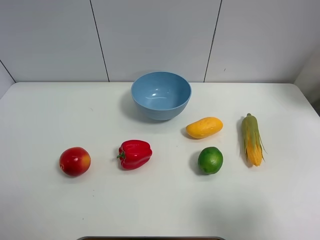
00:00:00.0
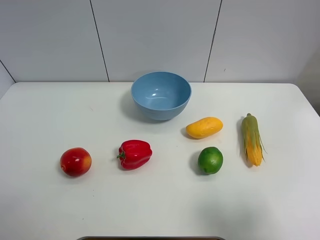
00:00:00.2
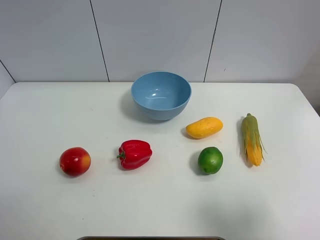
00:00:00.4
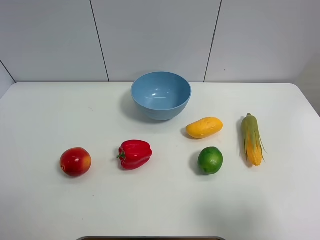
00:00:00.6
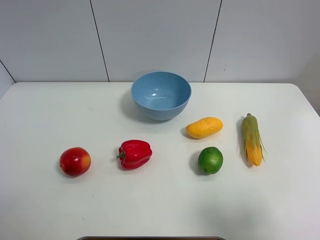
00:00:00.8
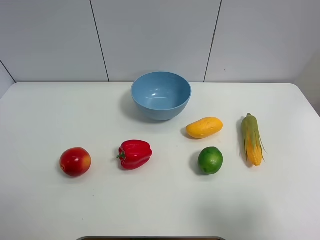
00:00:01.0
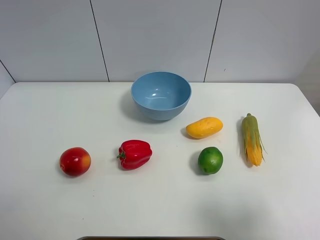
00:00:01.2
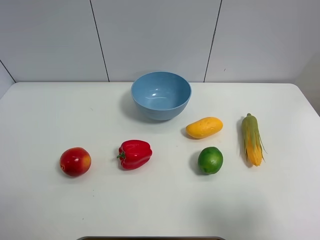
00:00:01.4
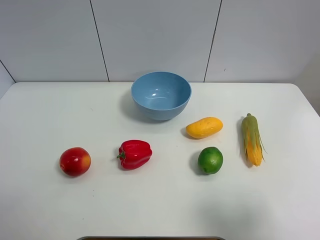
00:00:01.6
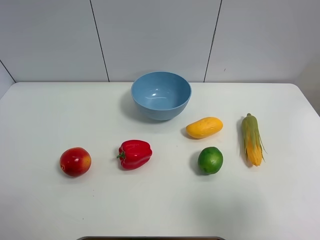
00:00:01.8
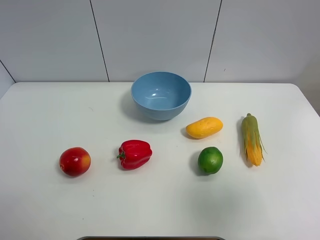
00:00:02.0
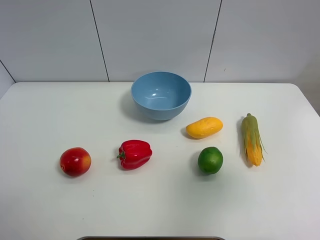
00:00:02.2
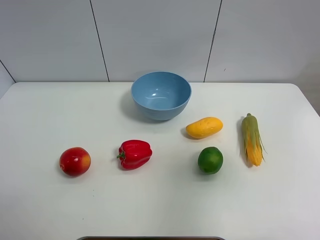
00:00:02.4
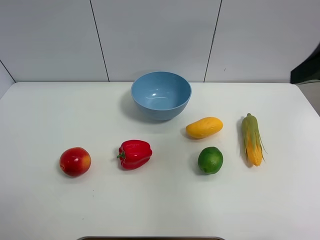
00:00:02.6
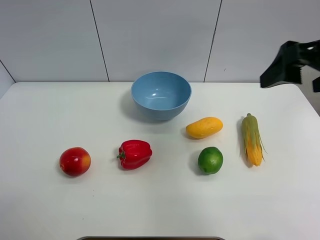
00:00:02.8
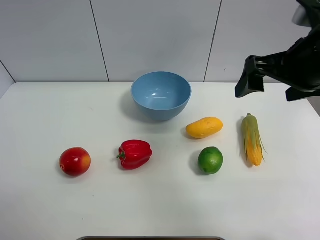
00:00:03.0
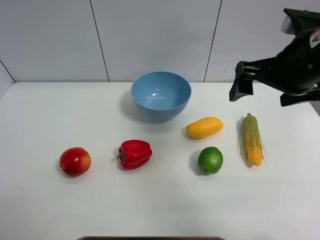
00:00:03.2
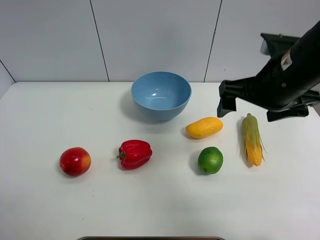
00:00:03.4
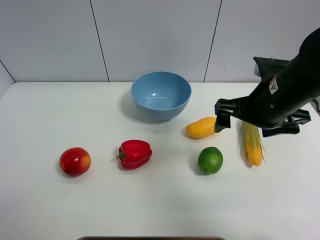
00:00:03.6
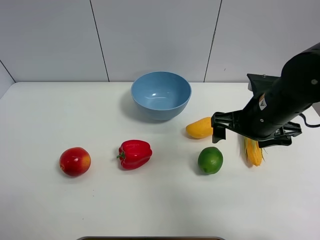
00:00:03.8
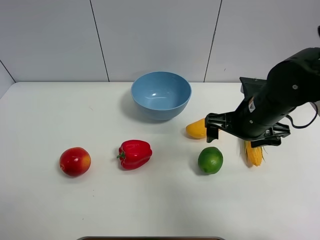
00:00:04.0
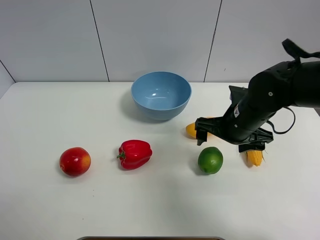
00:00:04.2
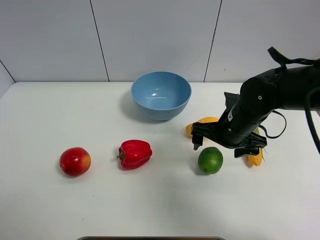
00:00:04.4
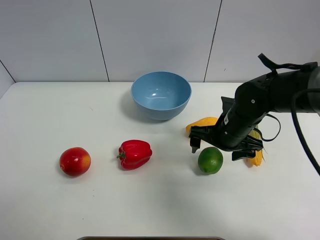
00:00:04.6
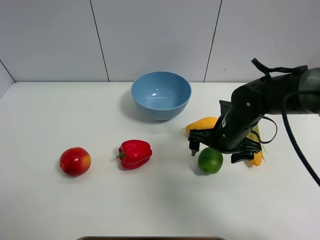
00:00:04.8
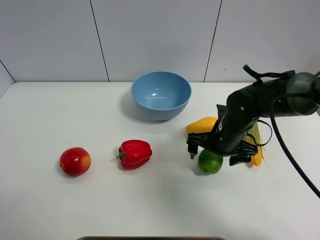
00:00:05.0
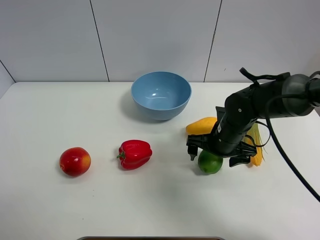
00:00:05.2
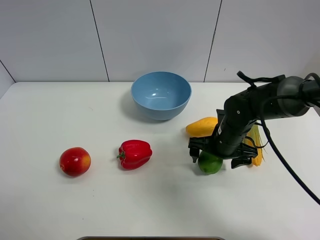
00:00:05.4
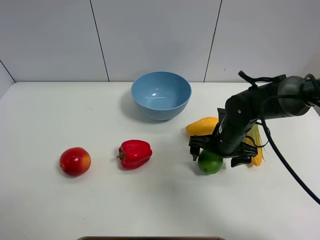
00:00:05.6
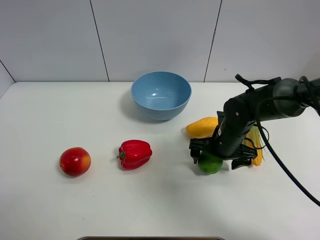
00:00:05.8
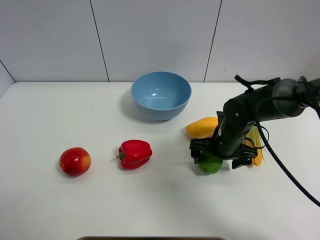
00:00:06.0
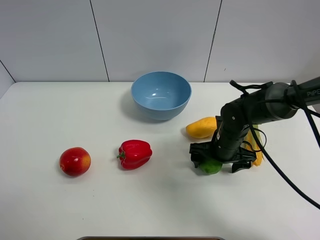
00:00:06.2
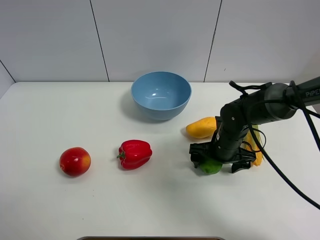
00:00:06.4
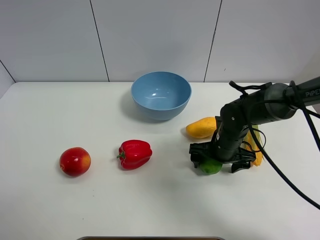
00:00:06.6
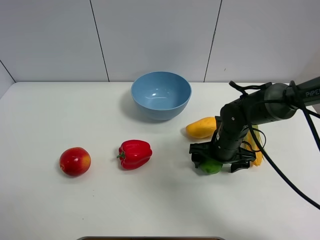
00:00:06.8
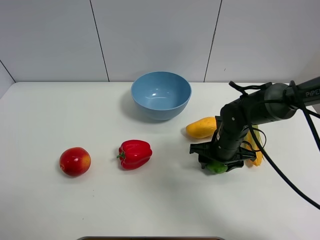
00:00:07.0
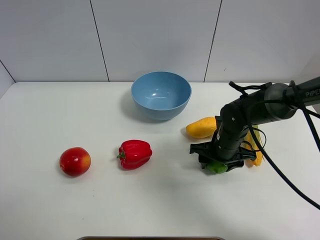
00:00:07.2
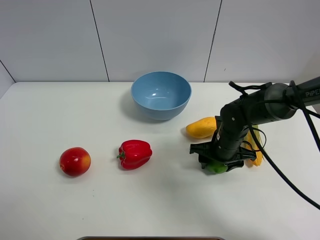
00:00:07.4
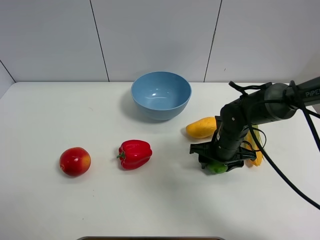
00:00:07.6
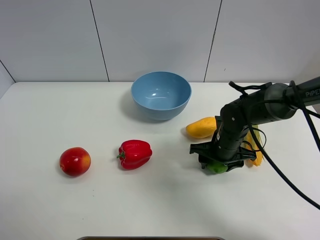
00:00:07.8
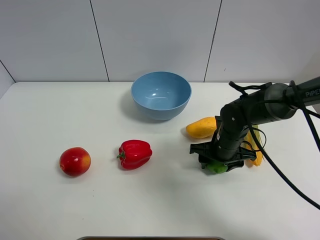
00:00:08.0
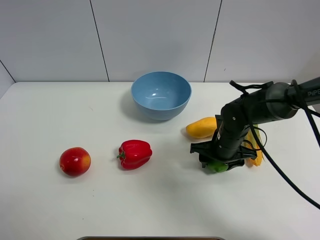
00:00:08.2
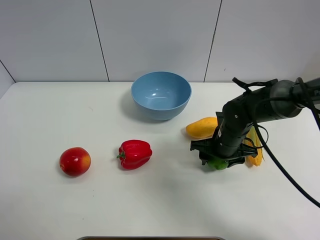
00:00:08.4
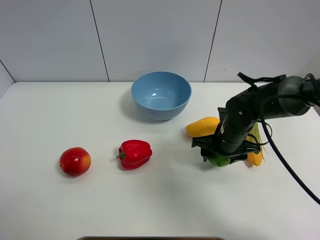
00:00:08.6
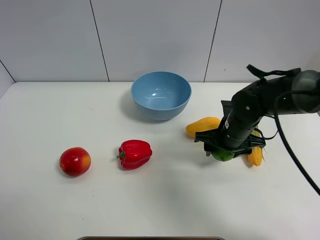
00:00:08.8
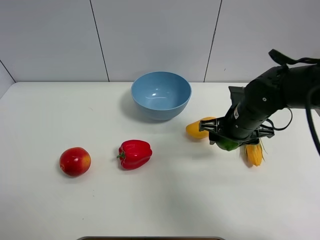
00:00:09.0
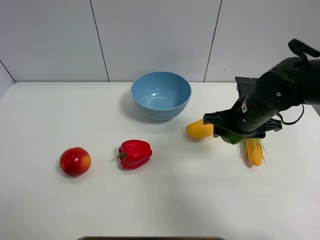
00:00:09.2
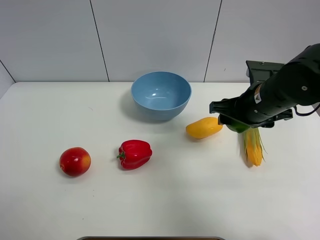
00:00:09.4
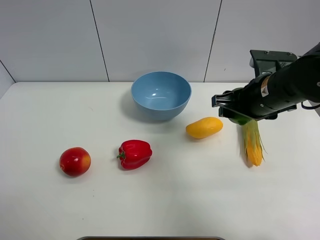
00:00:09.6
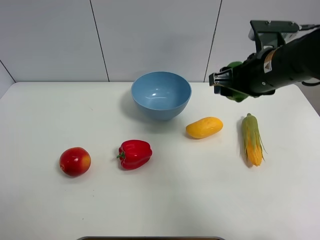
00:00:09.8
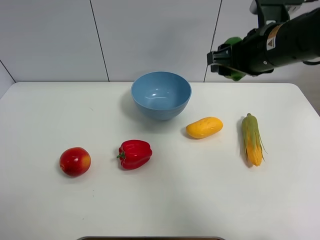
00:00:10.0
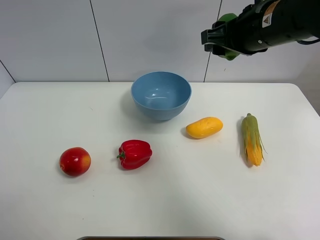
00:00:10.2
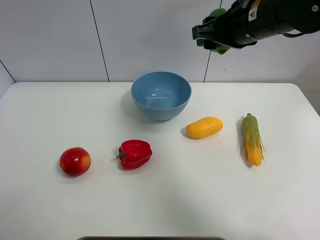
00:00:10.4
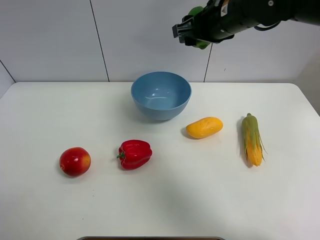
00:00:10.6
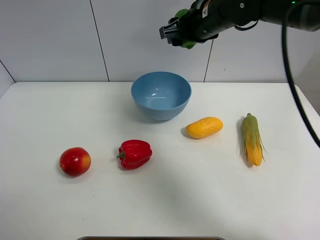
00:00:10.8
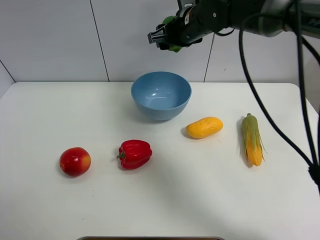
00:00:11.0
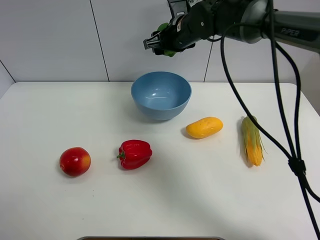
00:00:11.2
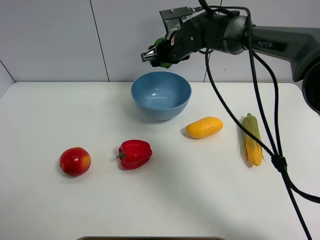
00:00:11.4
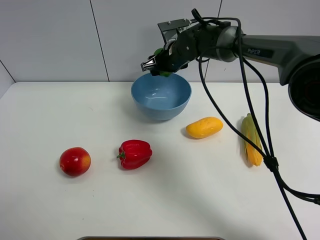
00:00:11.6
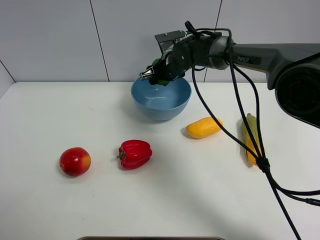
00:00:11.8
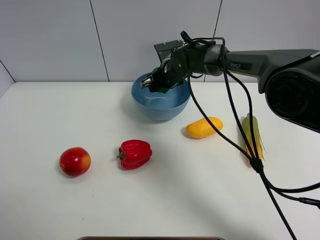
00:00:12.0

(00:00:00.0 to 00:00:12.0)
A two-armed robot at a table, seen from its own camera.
Task of the whole recording: Put the three fruits on the table into a bowl.
Step, 00:00:00.0 - 00:00:07.0: Grasp the green lemon with right gripper.
00:00:00.0 - 00:00:01.6: The two grippers keep their place.
00:00:01.6 - 00:00:03.0: The right gripper goes approximately 25 cm forward and to the left.
00:00:03.0 - 00:00:04.4: The right gripper moves downward, about 15 cm.
00:00:04.4 - 00:00:06.0: The right gripper moves downward, roughly 5 cm.
00:00:06.0 - 00:00:07.6: The right gripper closes its fingers.
00:00:07.6 - 00:00:09.0: The right gripper heads upward, covering approximately 10 cm.
00:00:09.0 - 00:00:10.4: The right gripper moves upward, approximately 15 cm.
00:00:10.4 - 00:00:12.0: The right gripper heads downward, forward and to the left, covering approximately 25 cm.

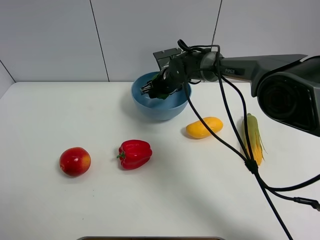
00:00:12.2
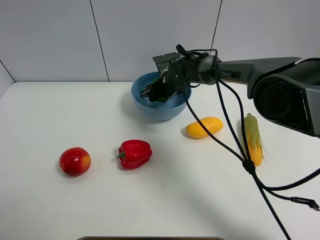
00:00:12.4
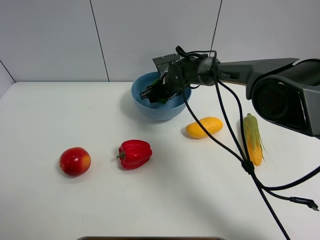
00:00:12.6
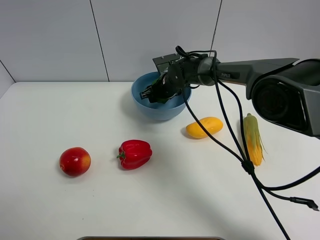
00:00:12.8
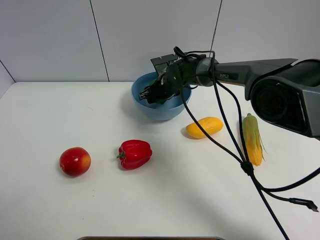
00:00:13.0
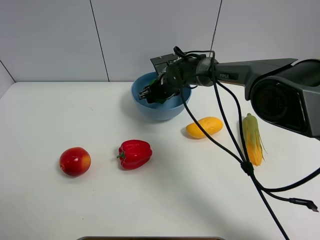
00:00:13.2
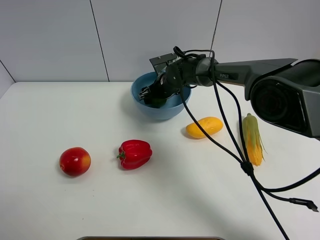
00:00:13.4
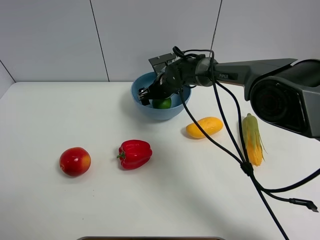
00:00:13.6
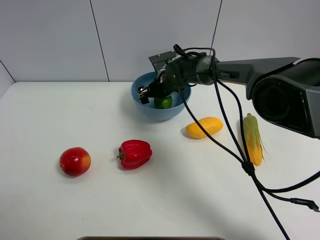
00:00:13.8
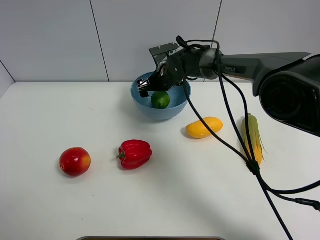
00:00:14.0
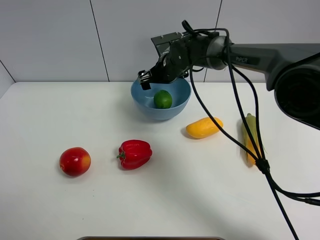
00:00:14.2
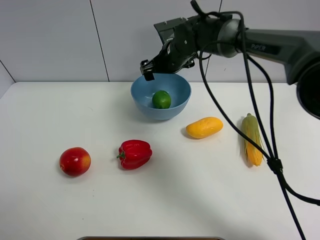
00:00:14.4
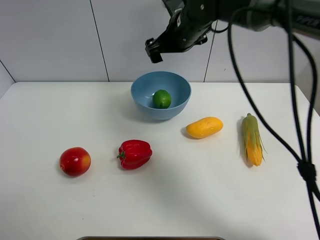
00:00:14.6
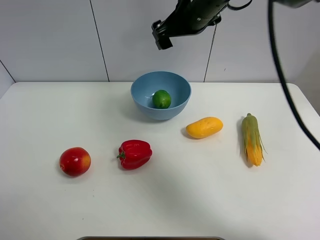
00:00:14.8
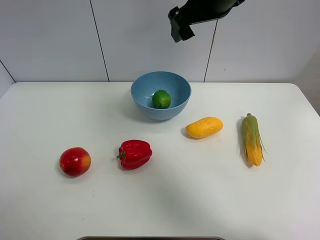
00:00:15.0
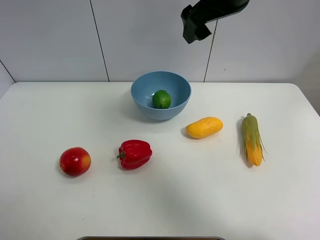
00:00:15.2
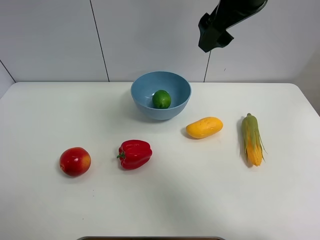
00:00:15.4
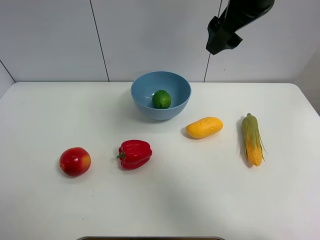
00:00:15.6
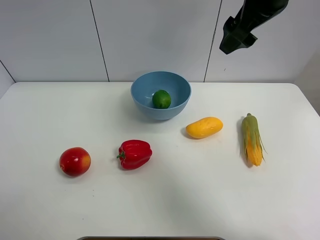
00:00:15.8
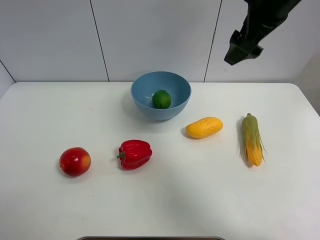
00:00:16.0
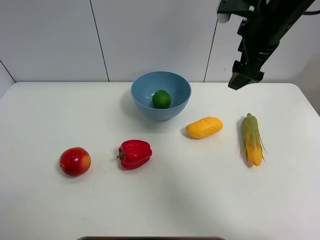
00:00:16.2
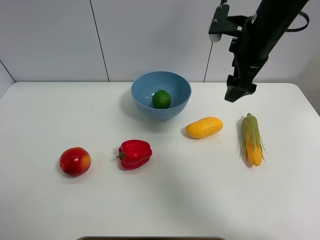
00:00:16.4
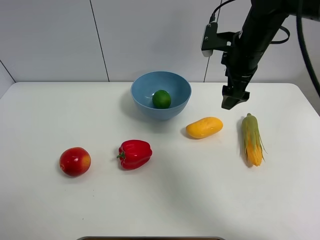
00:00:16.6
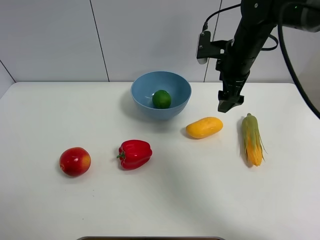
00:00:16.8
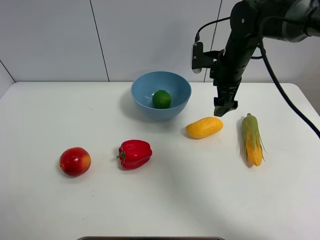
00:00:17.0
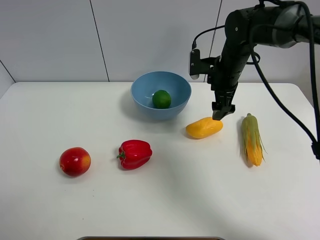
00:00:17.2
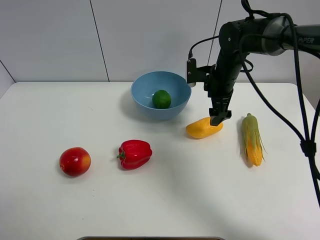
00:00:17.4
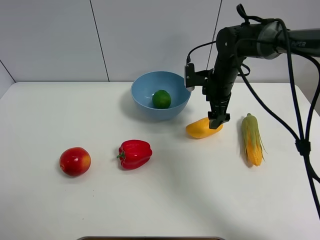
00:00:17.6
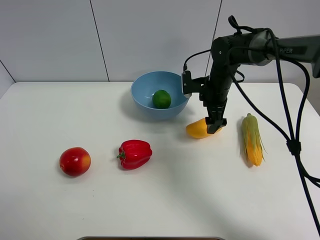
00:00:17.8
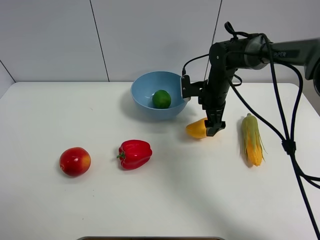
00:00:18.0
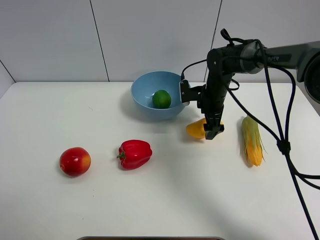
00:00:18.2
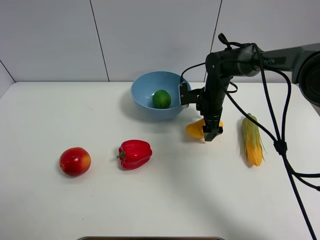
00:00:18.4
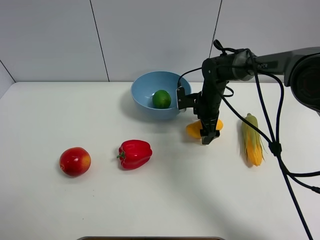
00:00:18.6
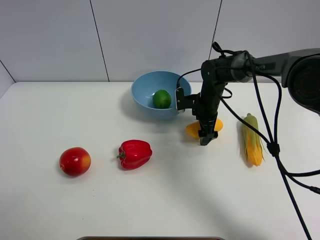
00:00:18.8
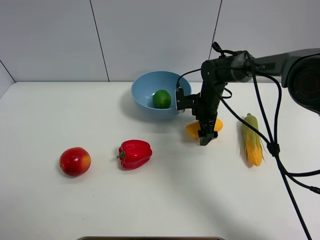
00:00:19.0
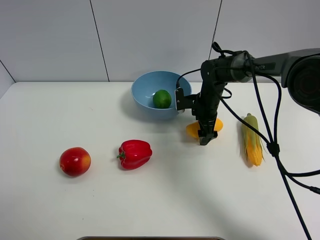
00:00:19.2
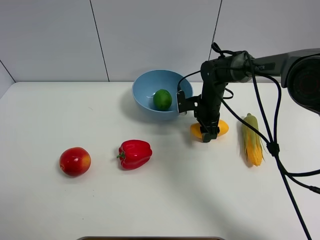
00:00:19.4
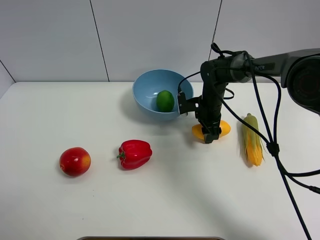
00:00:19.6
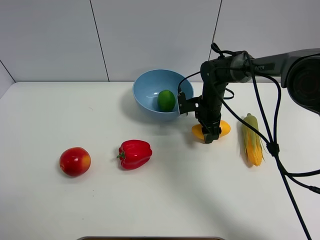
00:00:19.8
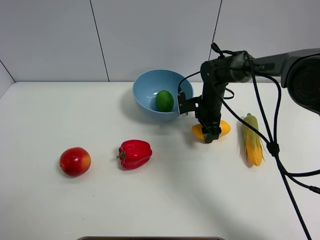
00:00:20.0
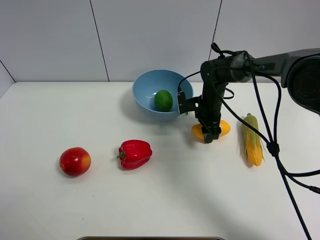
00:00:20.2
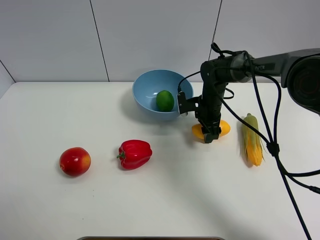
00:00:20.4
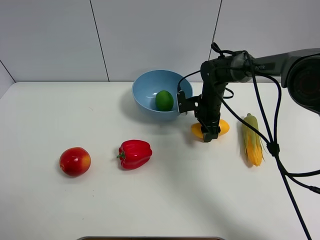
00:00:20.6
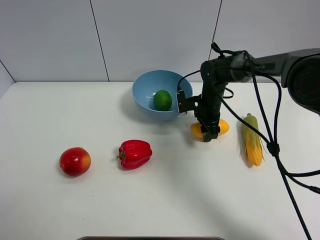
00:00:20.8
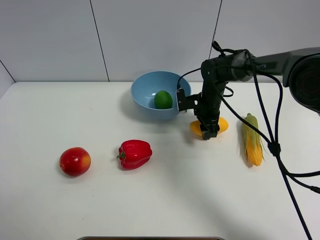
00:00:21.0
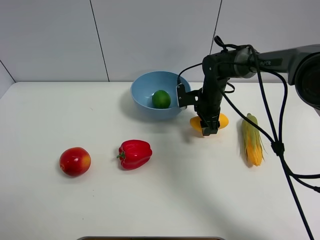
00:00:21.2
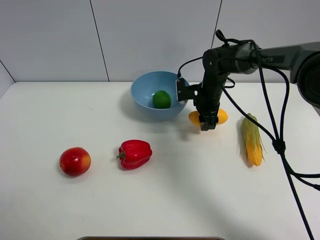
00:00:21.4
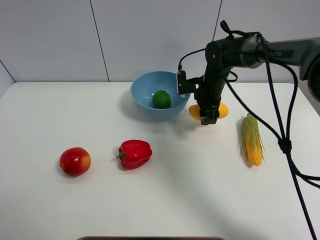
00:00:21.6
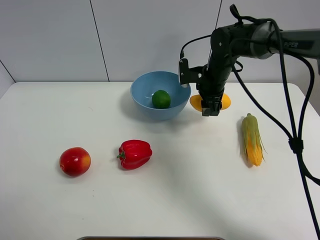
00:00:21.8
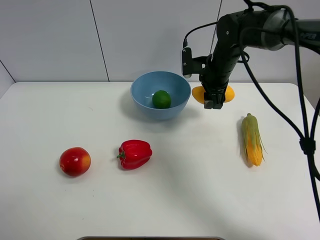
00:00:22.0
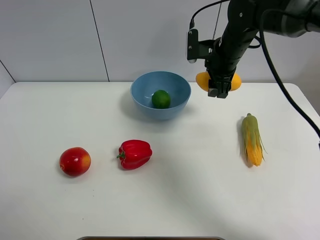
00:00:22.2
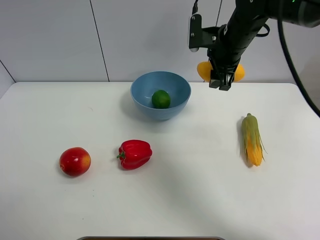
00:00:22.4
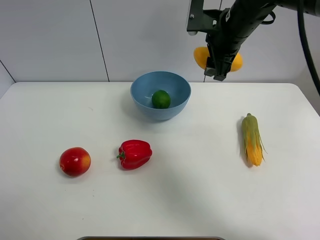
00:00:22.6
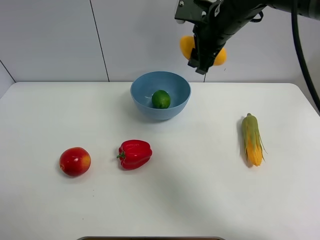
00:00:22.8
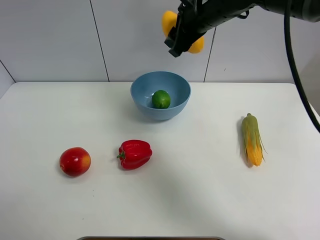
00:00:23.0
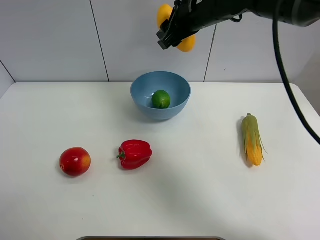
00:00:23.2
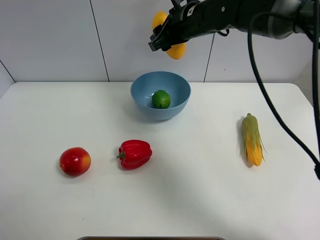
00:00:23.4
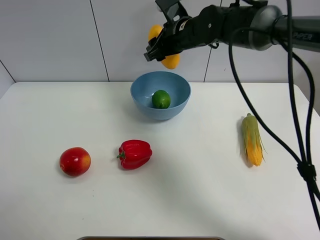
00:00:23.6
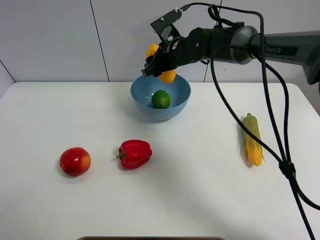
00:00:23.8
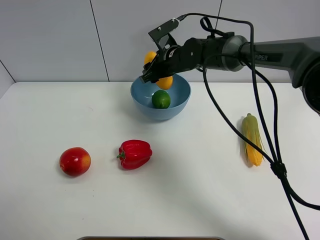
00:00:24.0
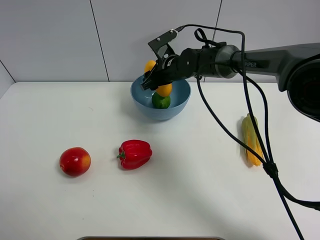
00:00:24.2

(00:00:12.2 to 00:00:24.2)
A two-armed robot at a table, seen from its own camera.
Task of the whole recording: Put the three fruits on the table into a bowl.
Step, 00:00:14.2 - 00:00:19.4: Grasp the mango with right gripper.
00:00:12.2 - 00:00:13.8: The right gripper opens its fingers.
00:00:13.8 - 00:00:15.2: The right gripper moves upward and backward, roughly 30 cm.
00:00:15.2 - 00:00:16.6: The right gripper goes some 15 cm downward and to the right.
00:00:16.6 - 00:00:18.2: The right gripper goes some 15 cm downward.
00:00:18.2 - 00:00:19.8: The right gripper closes.
00:00:19.8 - 00:00:21.2: The grippers make only small movements.
00:00:21.2 - 00:00:22.6: The right gripper travels upward by roughly 20 cm.
00:00:22.6 - 00:00:24.2: The right gripper moves downward, to the left and forward, about 20 cm.
